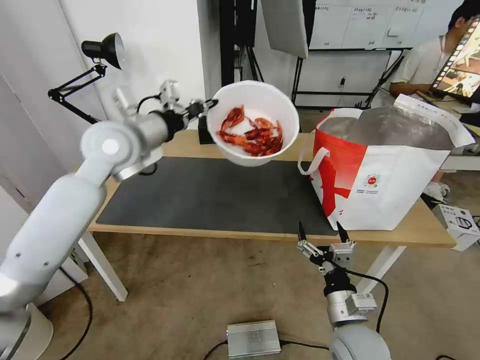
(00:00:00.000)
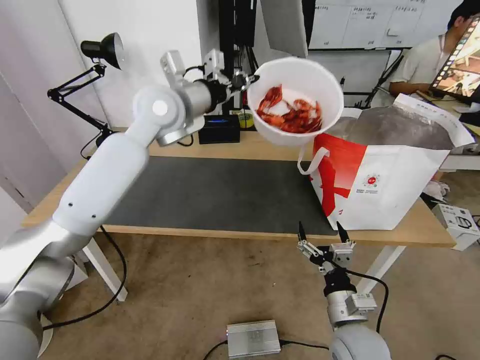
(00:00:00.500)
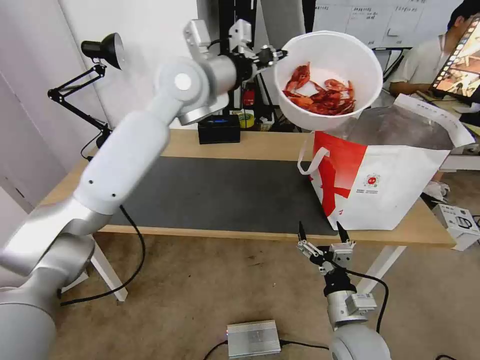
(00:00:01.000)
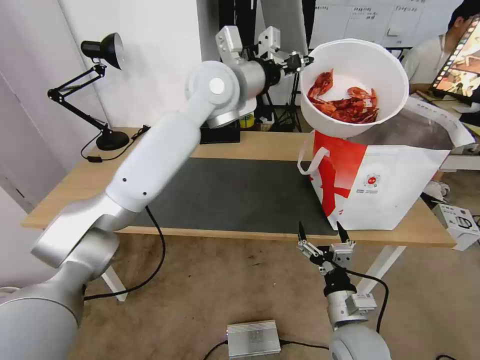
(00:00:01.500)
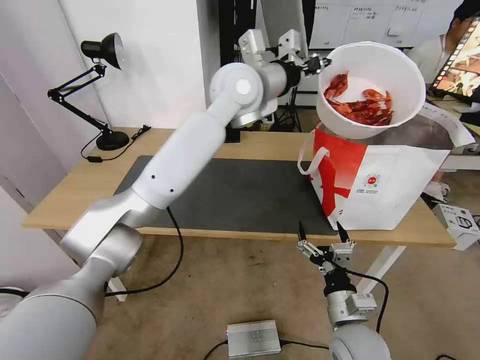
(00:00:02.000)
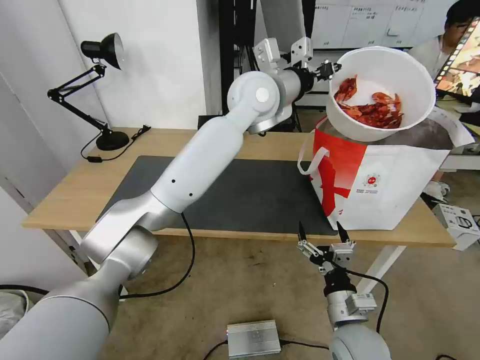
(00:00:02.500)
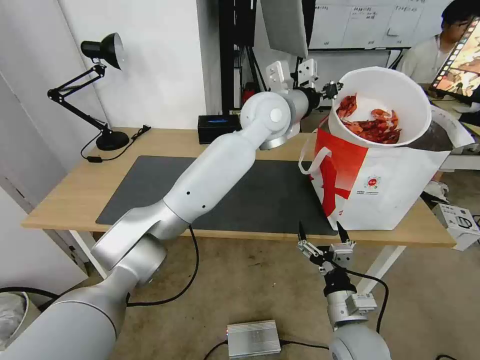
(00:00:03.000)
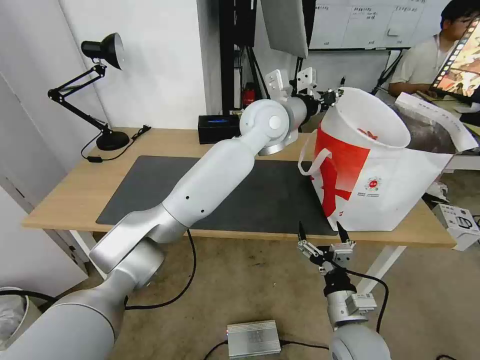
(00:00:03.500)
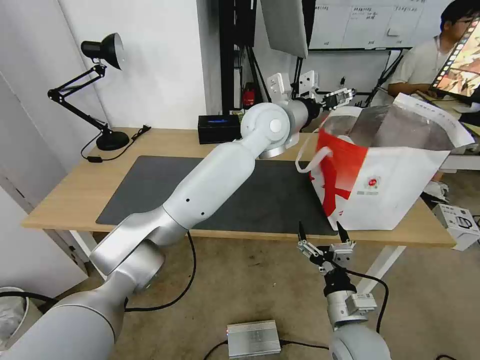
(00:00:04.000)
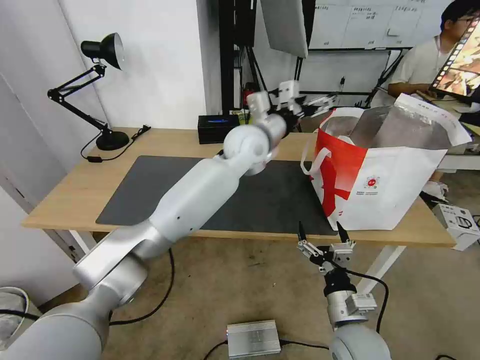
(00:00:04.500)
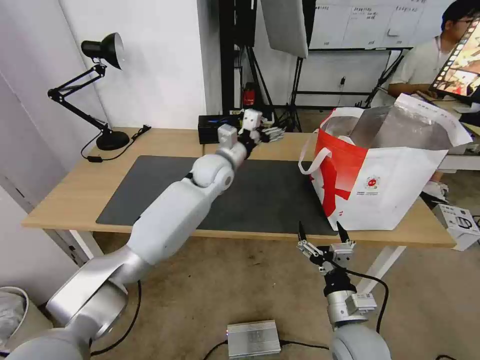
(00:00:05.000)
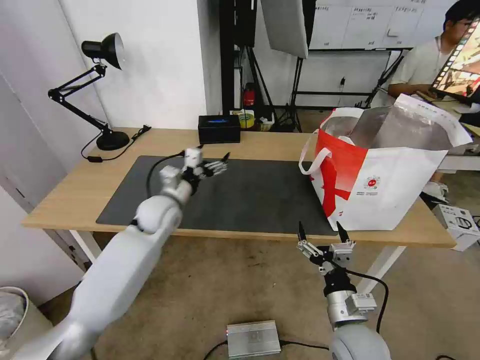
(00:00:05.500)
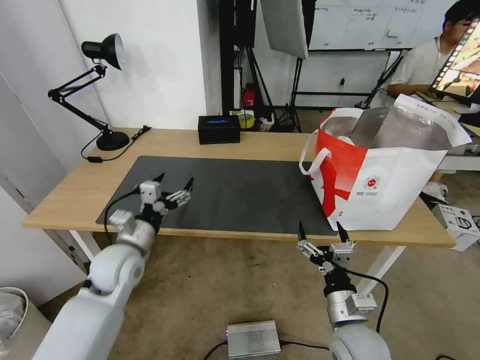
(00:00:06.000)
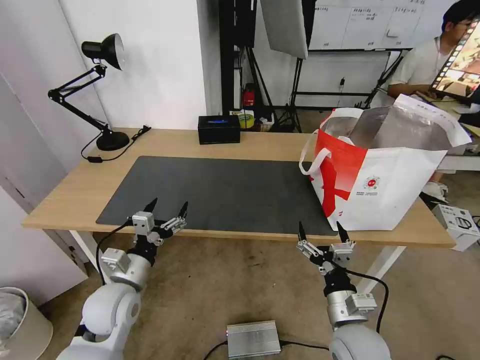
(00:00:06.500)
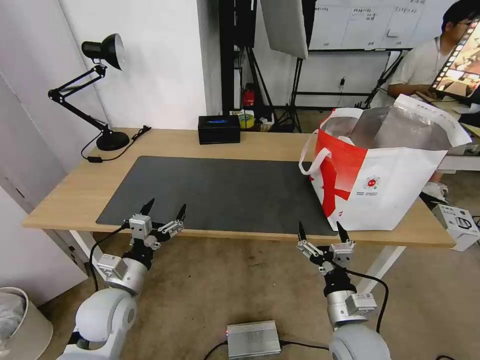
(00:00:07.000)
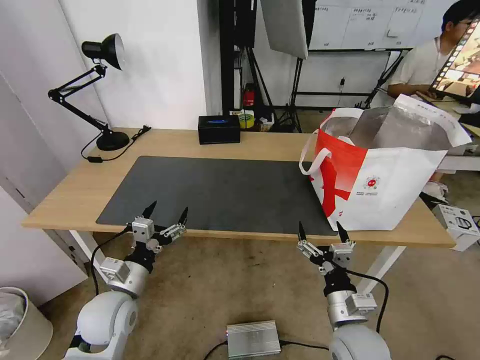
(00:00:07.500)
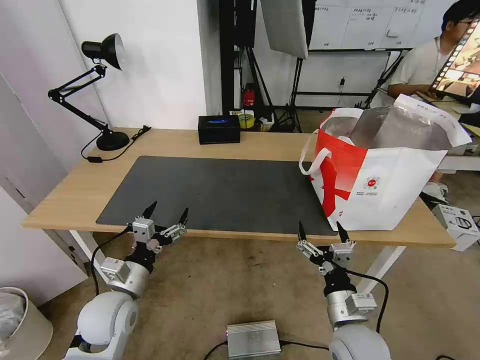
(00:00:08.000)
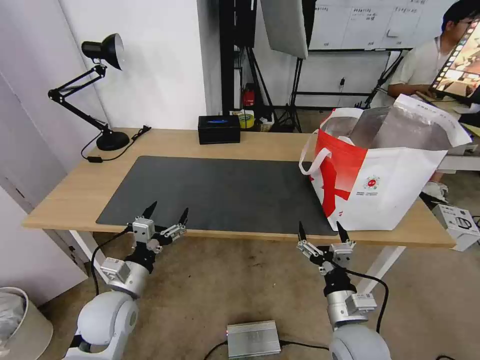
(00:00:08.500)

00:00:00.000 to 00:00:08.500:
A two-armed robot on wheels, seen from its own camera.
Task of the whole recording: Pick up the trash from the table and place it into the takeout bag.
00:00:00.000 to 00:00:02.000: The left gripper shifts about 20 cm to the right.
00:00:02.000 to 00:00:04.000: The left gripper goes some 10 cm downward and to the right, and opens up.
00:00:04.000 to 00:00:06.500: The left gripper shifts roughly 50 cm to the left, downward and backward.
00:00:06.500 to 00:00:08.500: There are only small adjustments of the grippers.

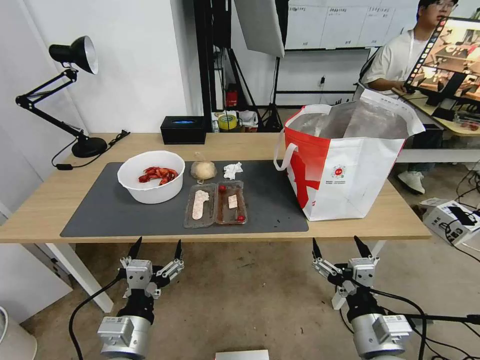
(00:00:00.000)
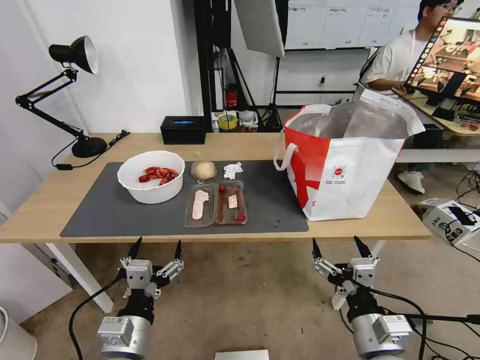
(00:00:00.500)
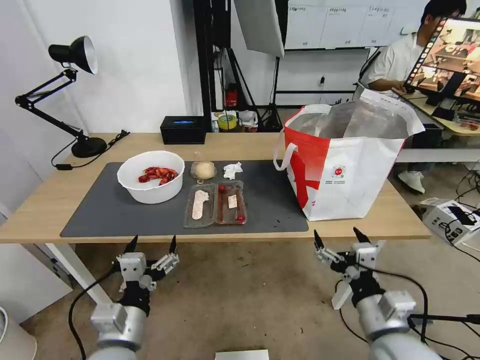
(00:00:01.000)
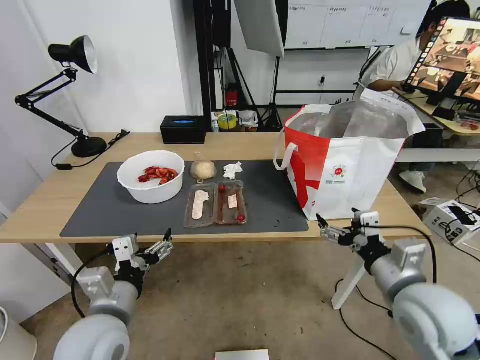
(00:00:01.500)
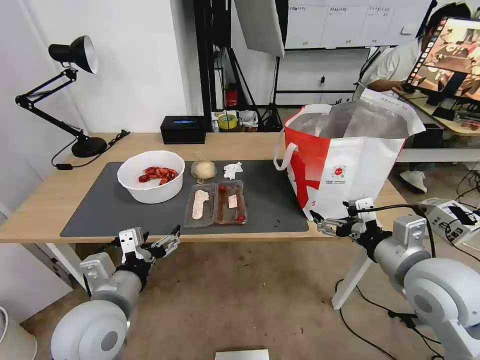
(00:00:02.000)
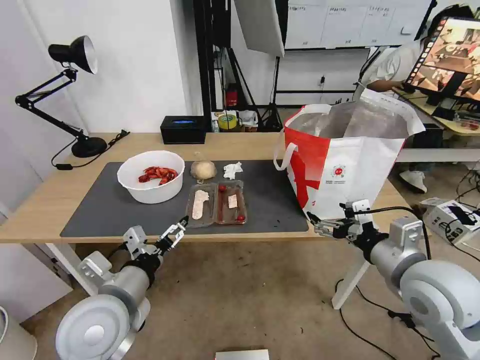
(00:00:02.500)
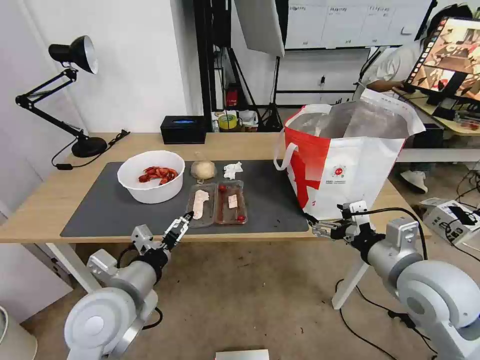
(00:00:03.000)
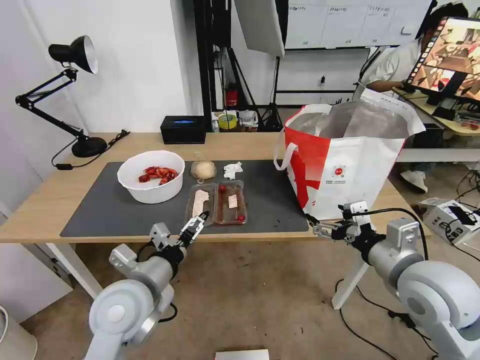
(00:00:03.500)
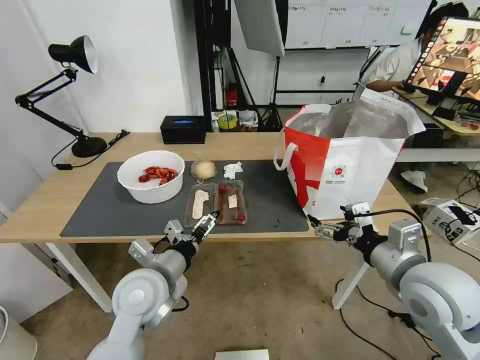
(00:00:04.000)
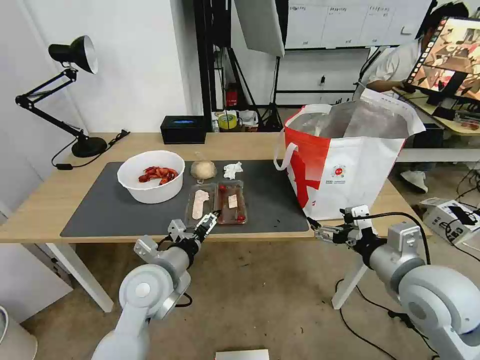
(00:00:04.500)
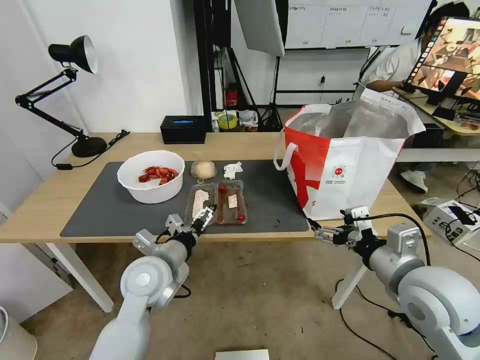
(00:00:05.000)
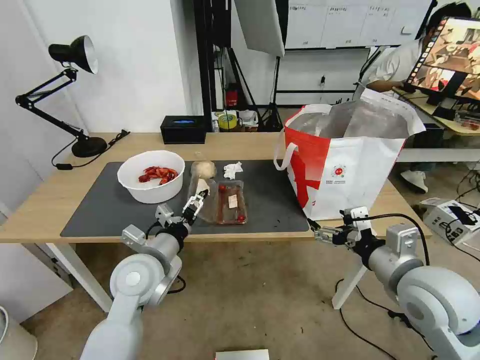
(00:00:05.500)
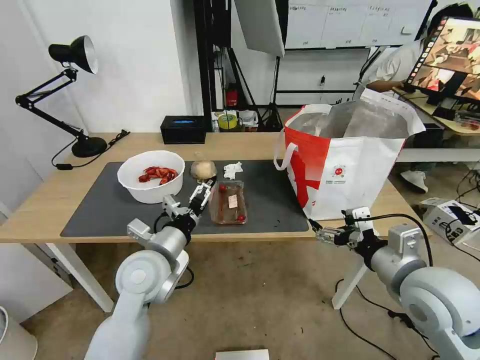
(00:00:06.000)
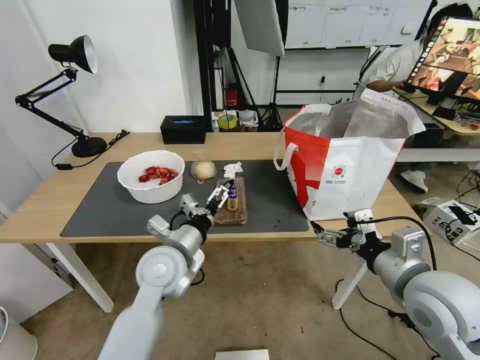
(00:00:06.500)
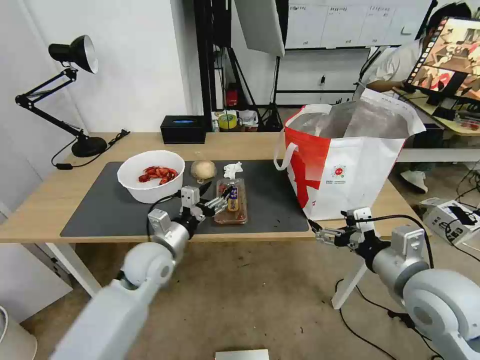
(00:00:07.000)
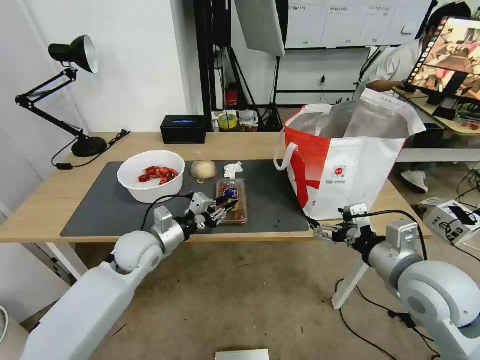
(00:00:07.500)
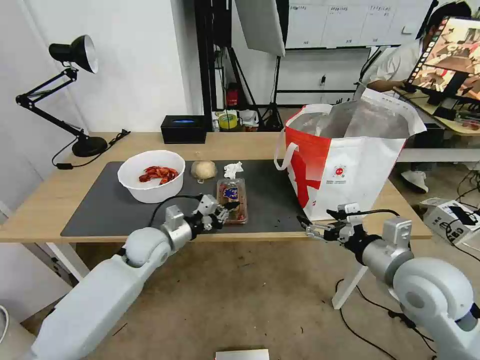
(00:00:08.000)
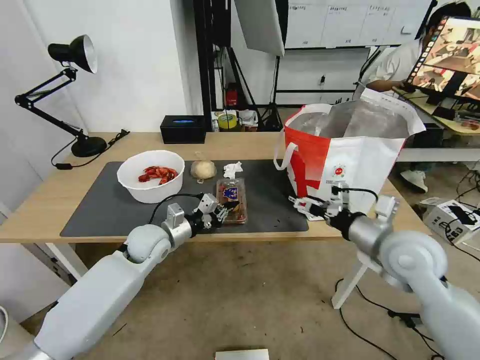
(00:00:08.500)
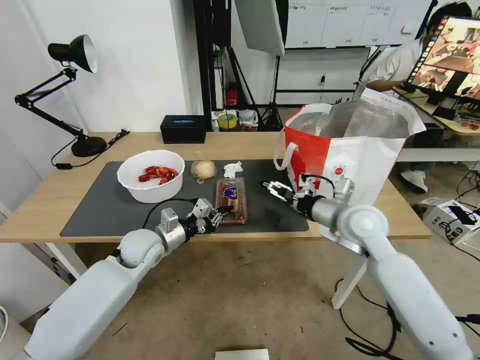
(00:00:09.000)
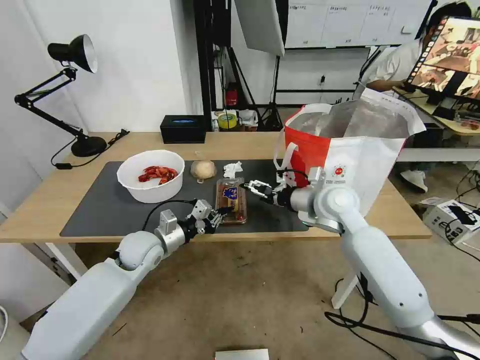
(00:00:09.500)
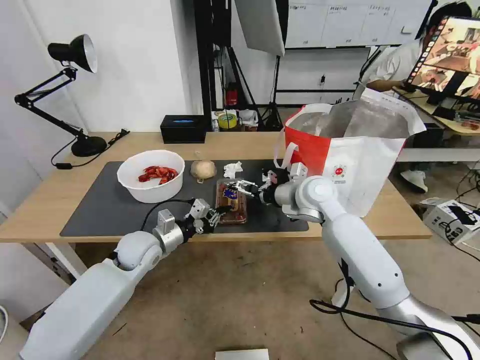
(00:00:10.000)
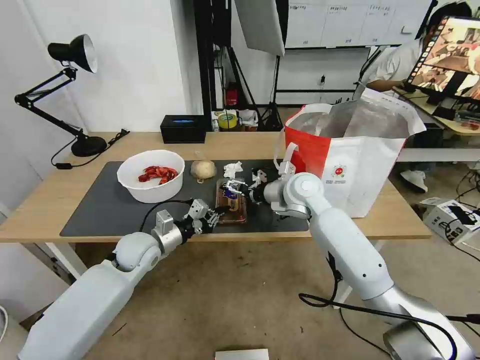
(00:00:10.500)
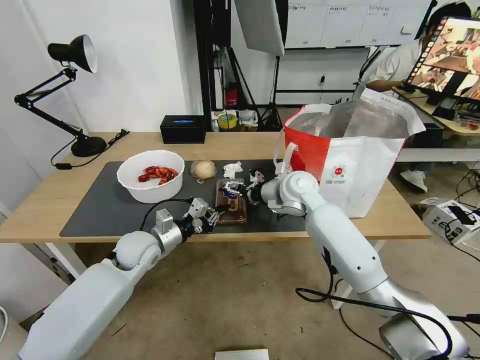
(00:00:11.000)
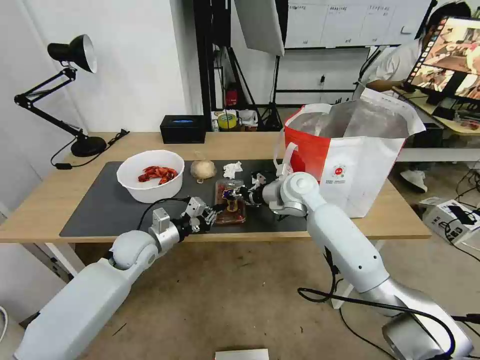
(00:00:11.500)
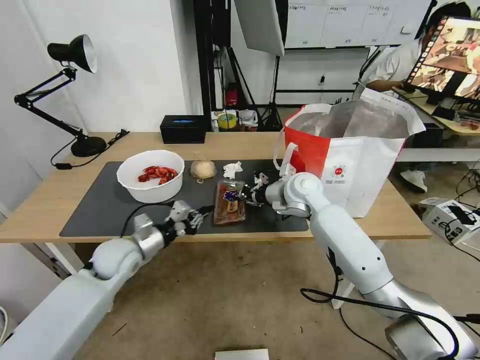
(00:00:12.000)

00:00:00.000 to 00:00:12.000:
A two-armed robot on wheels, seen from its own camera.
Task of the whole recording: Pick up the trash from the table and place it into the takeout bag.
00:00:02.000 to 00:00:04.000: The left gripper shifts roughly 10 cm forward and to the right.
00:00:04.000 to 00:00:06.000: The grippers move only a little.
00:00:06.000 to 00:00:08.000: The left gripper travels forward and downward by about 15 cm, and closes its fingers.
00:00:08.000 to 00:00:10.000: The right gripper travels forward and to the left by approximately 25 cm.
00:00:10.000 to 00:00:12.000: The right gripper closes. The left gripper ends up about 5 cm from where it was.

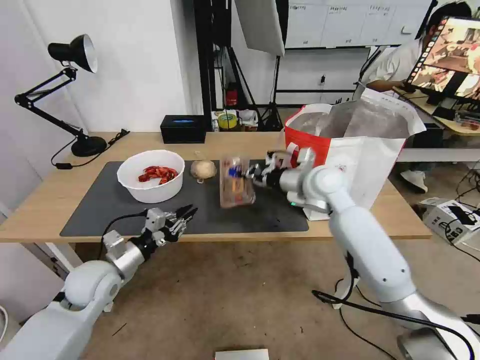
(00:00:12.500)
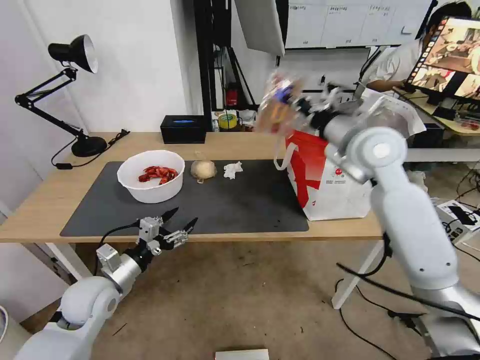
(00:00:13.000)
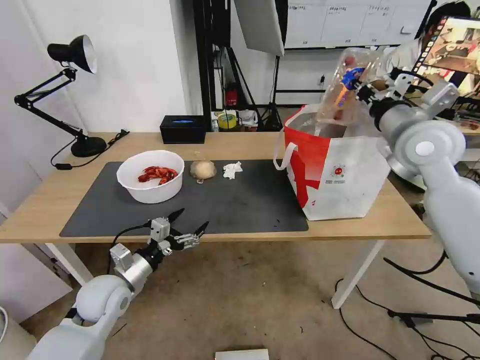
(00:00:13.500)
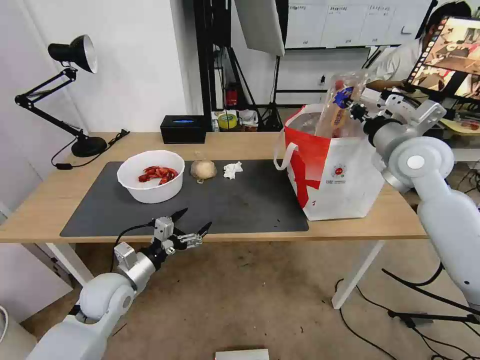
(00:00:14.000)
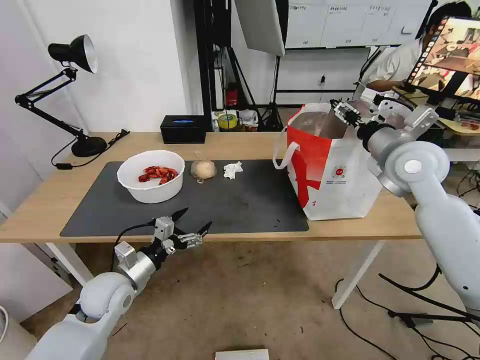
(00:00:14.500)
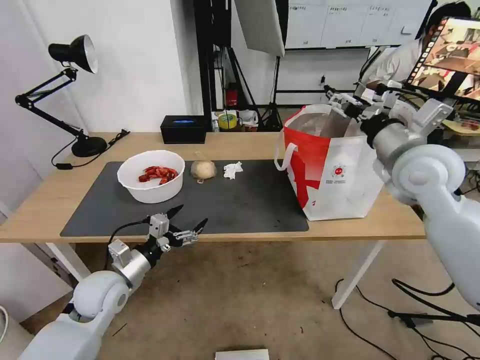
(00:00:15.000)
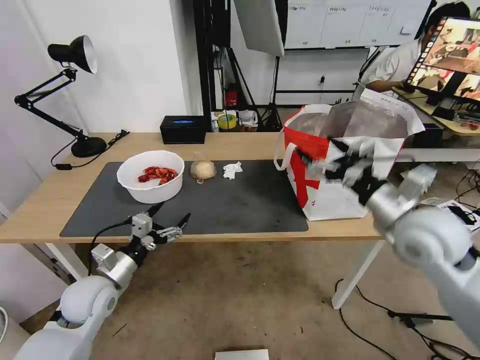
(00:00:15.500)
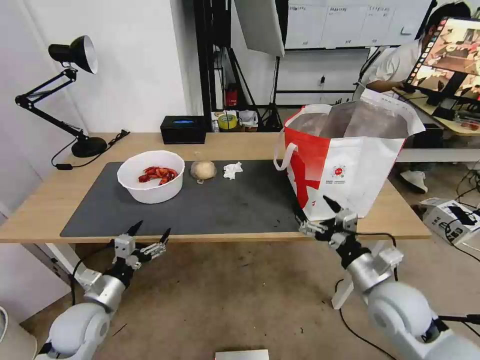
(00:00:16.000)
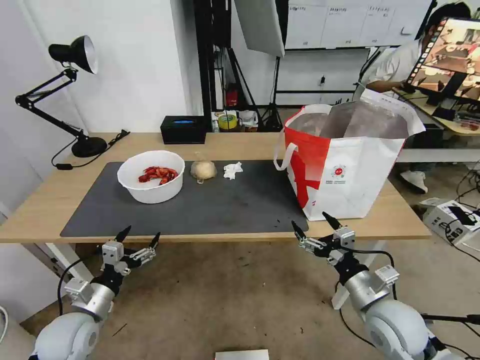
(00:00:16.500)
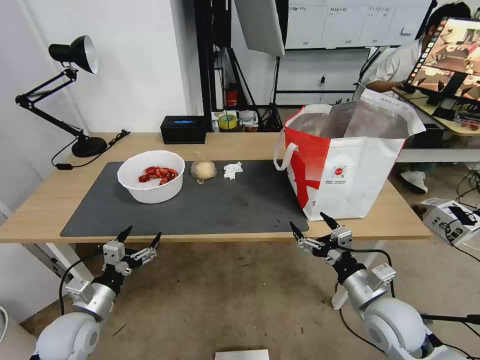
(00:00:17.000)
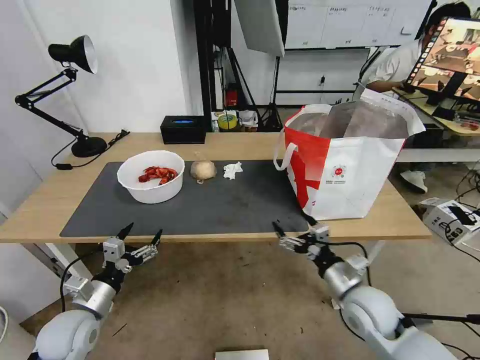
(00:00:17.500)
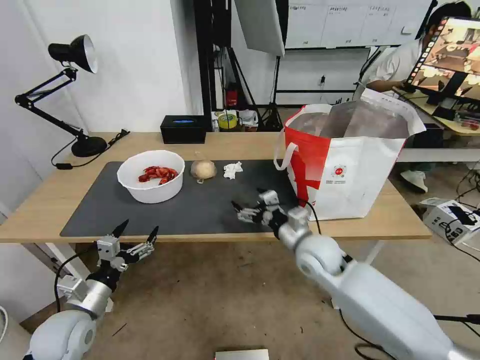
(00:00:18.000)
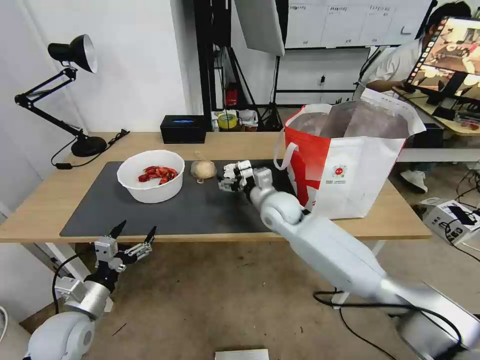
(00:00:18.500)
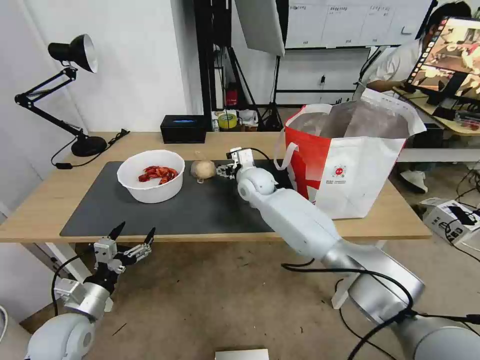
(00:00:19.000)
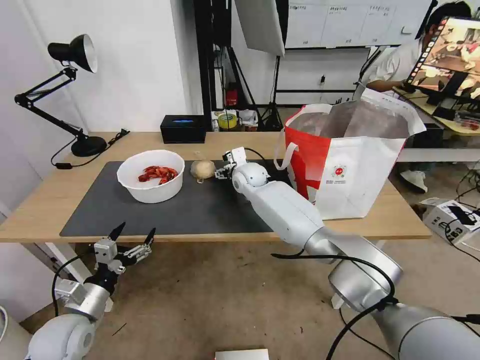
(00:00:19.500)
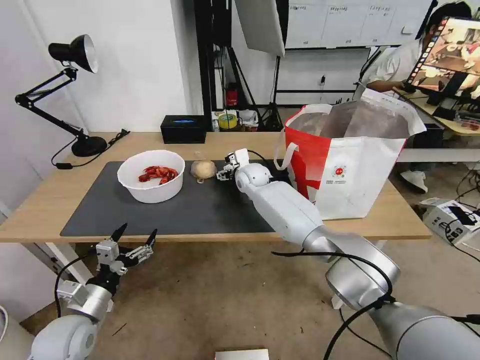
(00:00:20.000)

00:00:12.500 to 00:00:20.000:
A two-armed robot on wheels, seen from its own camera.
Task of the whole recording: Pick up the trash from the table and place it into the takeout bag.
00:00:12.500 to 00:00:14.500: The right gripper moves to the right and upward, approximately 15 cm, and opens. The left gripper opens.
00:00:14.500 to 00:00:16.500: The left gripper goes roughly 10 cm backward and to the left. Meanwhile the right gripper goes some 30 cm downward and backward, and opens up.
00:00:16.500 to 00:00:18.000: The right gripper travels forward and to the left by approximately 20 cm.
00:00:18.000 to 00:00:20.000: The right gripper goes about 25 cm forward and to the left.
